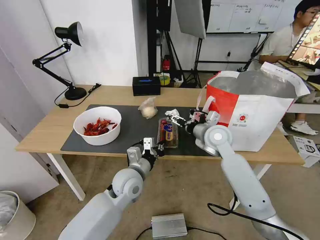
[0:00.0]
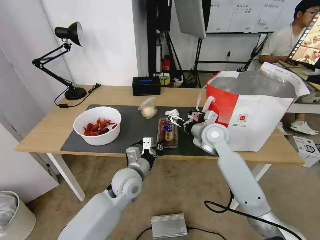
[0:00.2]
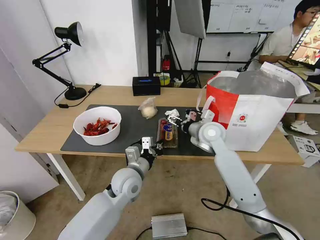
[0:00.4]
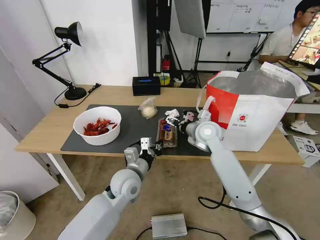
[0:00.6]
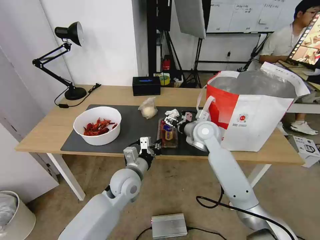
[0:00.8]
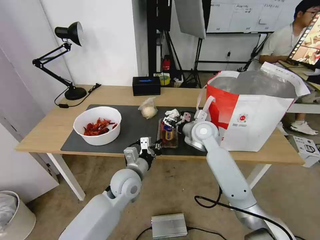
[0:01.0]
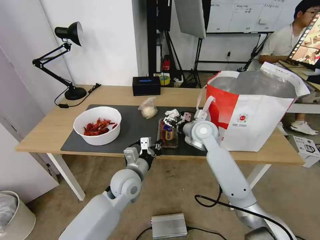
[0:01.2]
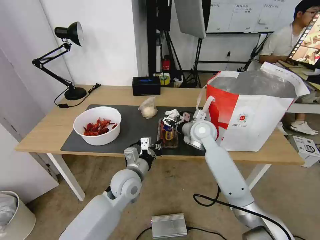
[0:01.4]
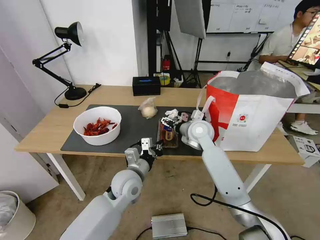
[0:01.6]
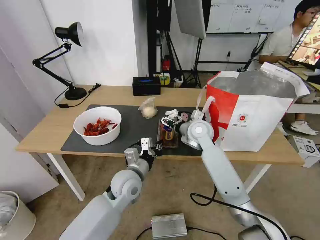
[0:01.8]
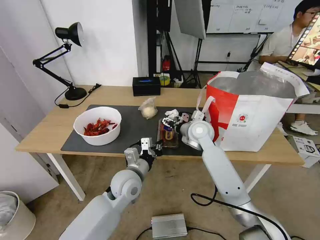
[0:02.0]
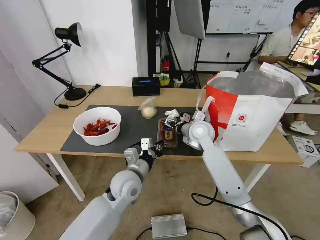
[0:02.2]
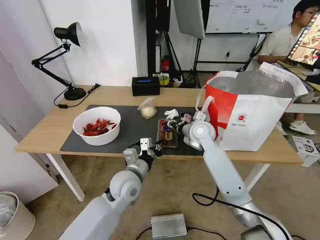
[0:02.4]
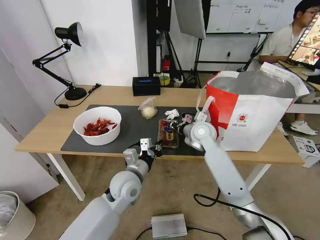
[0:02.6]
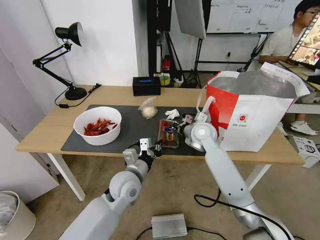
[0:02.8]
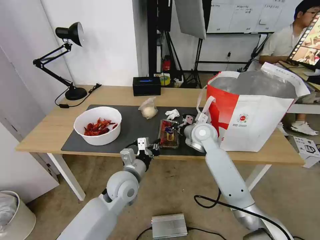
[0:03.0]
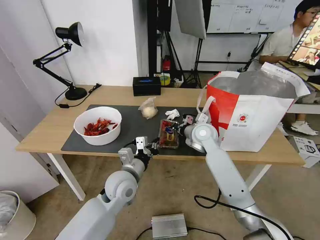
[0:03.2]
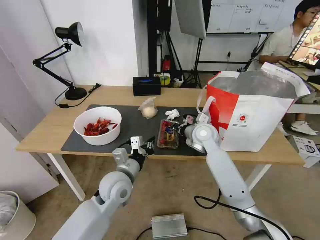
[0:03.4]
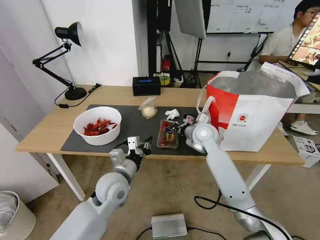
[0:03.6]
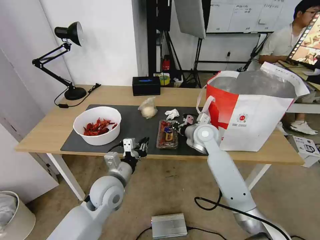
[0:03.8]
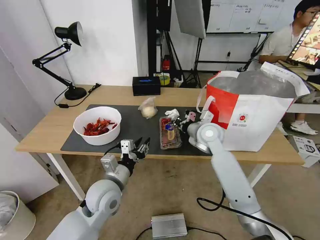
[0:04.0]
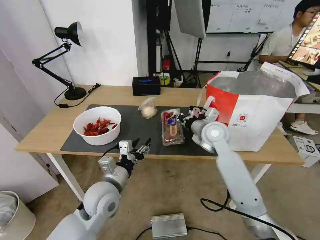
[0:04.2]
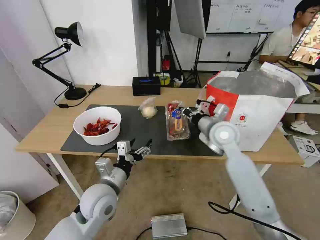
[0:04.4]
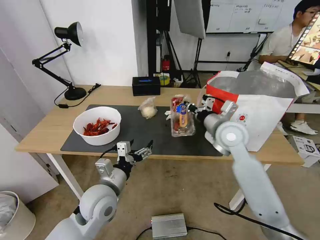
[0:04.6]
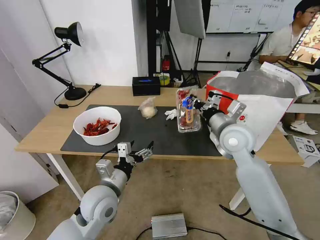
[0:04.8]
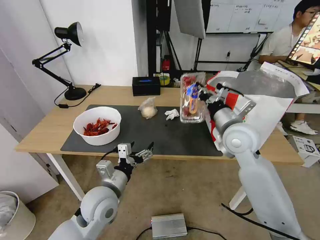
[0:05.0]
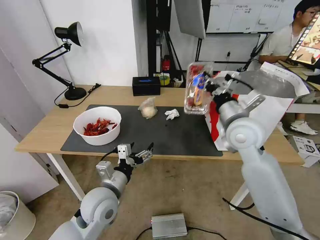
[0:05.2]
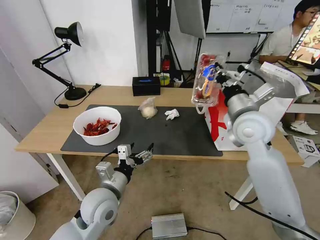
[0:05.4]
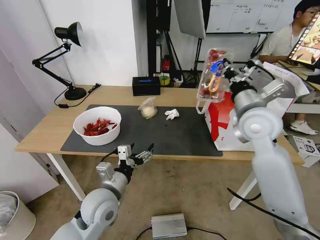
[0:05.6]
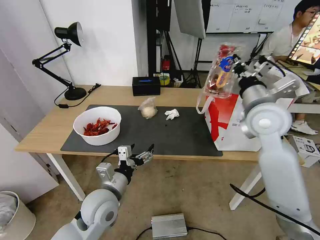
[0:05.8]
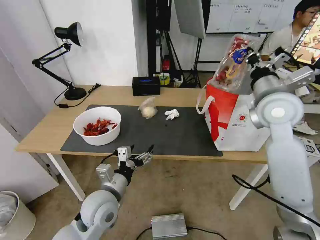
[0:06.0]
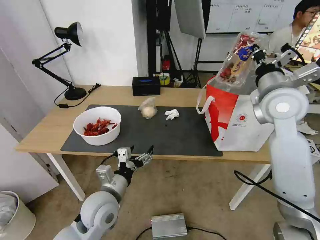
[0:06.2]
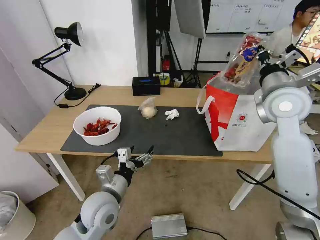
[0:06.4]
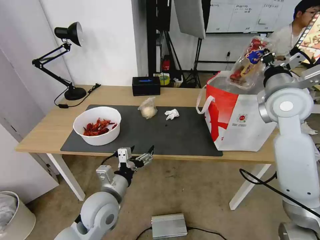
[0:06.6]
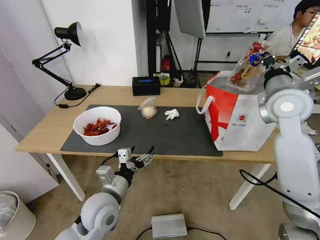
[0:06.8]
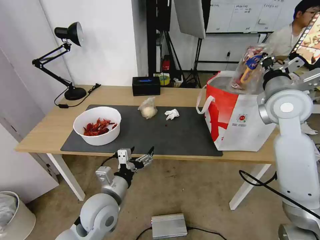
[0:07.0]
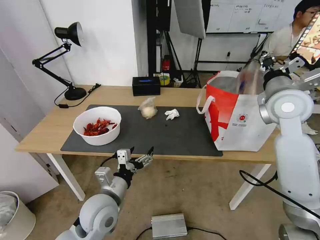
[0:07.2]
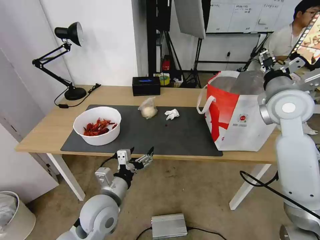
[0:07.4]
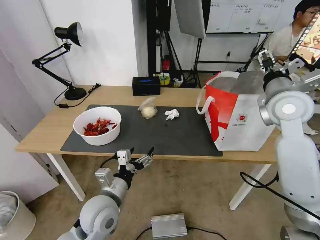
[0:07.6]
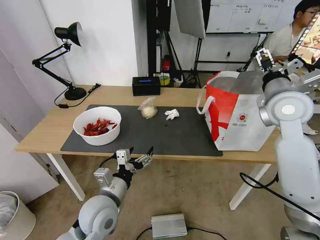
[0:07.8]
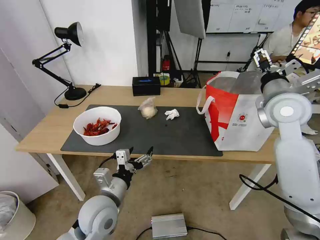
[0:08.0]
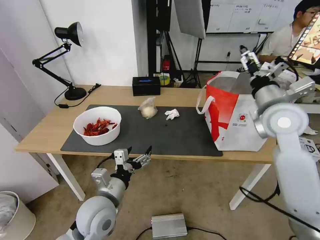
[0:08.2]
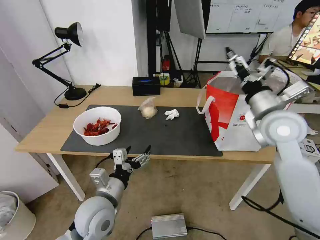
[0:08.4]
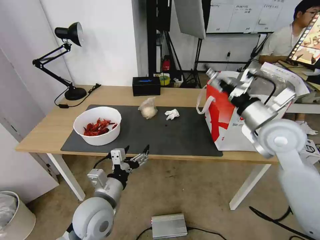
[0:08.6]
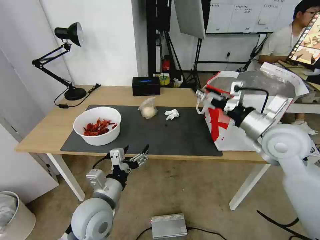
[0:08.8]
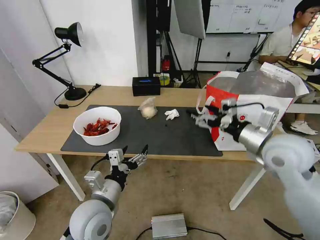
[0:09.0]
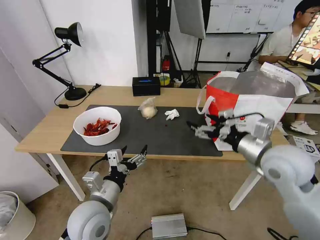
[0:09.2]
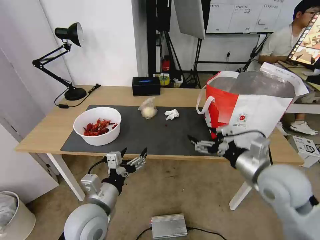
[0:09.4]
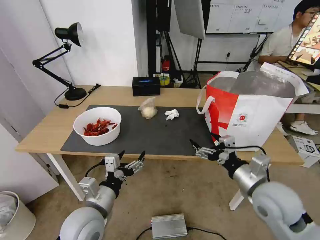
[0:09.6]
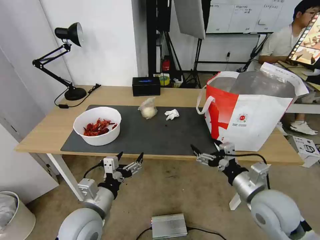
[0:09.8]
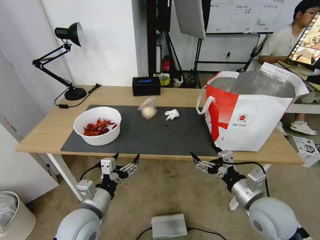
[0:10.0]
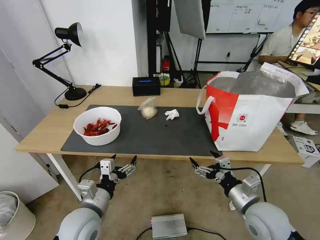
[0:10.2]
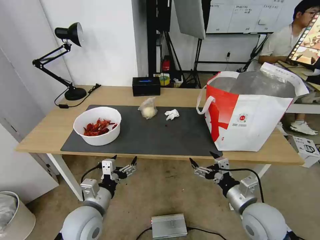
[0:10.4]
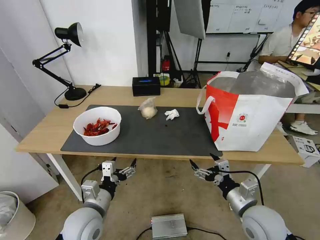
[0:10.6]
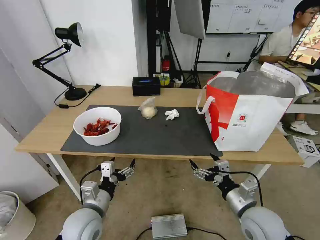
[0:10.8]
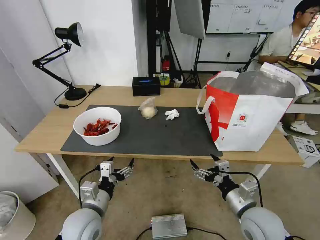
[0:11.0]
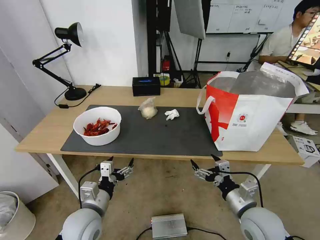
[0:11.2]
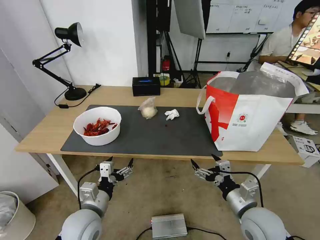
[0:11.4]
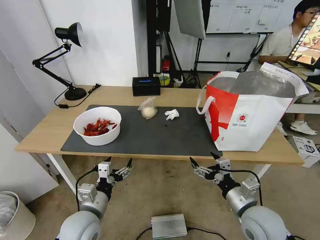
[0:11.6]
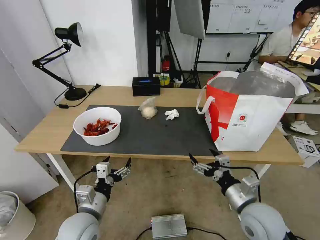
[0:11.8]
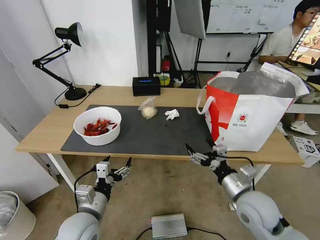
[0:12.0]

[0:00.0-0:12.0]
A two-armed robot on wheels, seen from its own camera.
Task of the whole recording: Pick up the trash from the table and place it into the takeout bag.
0:00.0 to 0:01.6: The right gripper changes place by approximately 5 cm.
0:01.6 to 0:03.0: The right gripper closes up.
0:03.0 to 0:04.4: The left gripper is displaced to the left by approximately 5 cm, and opens its fingers. The right gripper is displaced upward by roughly 5 cm.
0:04.4 to 0:06.0: The right gripper shifts about 15 cm upward and to the right.
0:06.0 to 0:07.6: The right gripper opens up.
0:07.6 to 0:09.0: The right gripper goes roughly 10 cm backward and downward.
0:09.0 to 0:10.4: The right gripper travels downward and backward by roughly 20 cm. The left gripper changes place by roughly 5 cm.
0:10.4 to 0:12.0: The grippers move only a little.

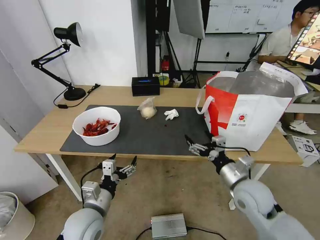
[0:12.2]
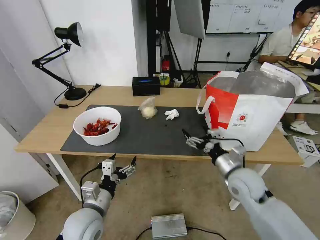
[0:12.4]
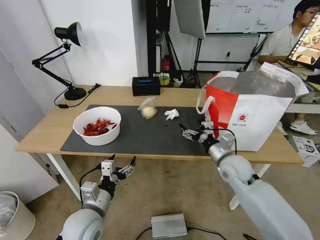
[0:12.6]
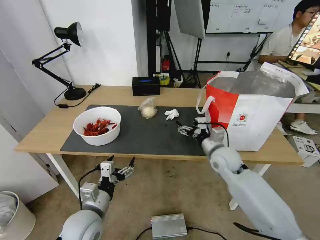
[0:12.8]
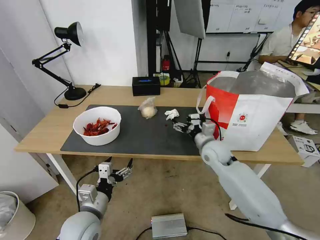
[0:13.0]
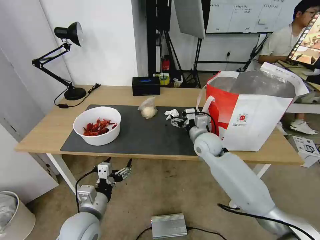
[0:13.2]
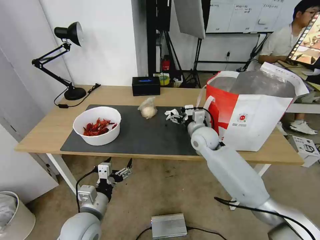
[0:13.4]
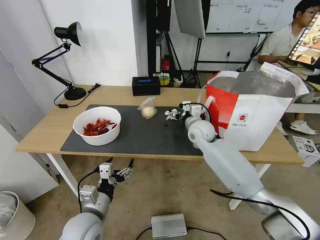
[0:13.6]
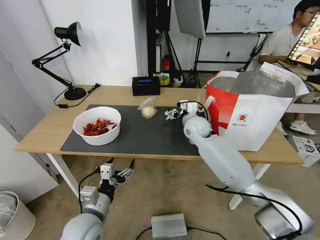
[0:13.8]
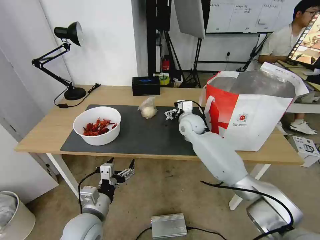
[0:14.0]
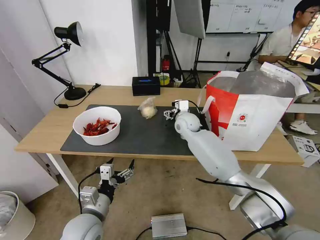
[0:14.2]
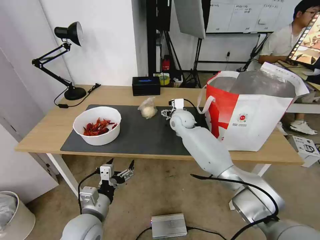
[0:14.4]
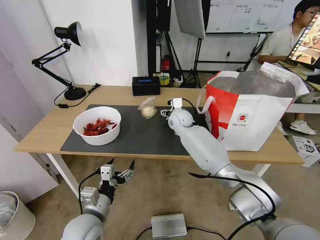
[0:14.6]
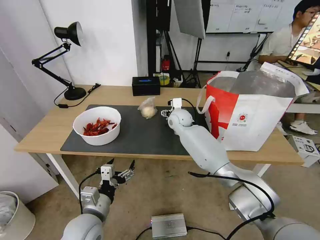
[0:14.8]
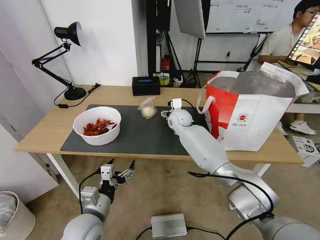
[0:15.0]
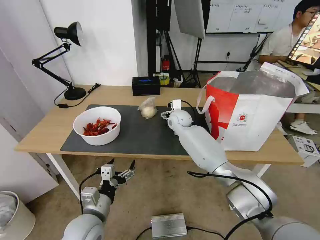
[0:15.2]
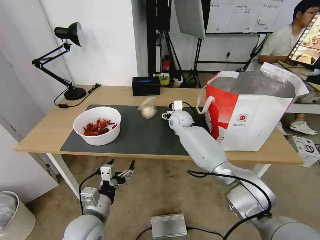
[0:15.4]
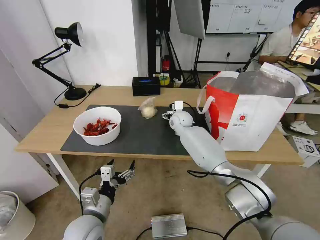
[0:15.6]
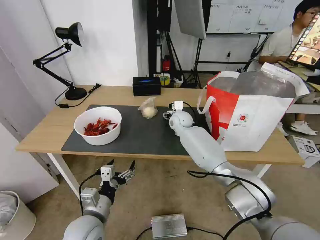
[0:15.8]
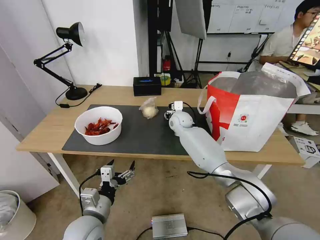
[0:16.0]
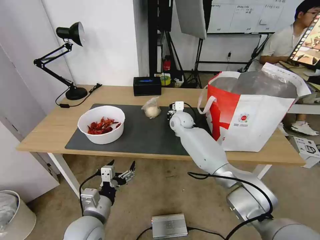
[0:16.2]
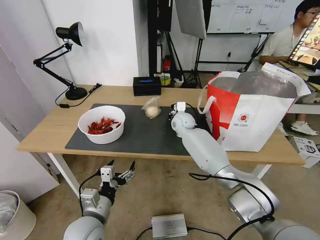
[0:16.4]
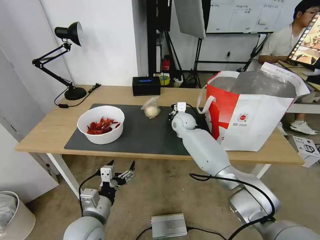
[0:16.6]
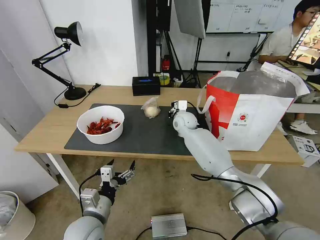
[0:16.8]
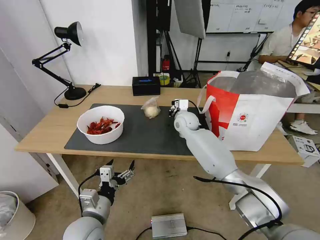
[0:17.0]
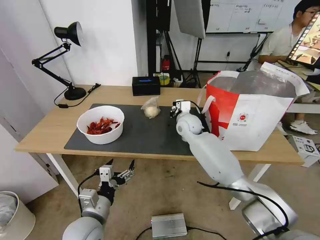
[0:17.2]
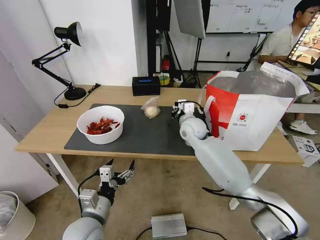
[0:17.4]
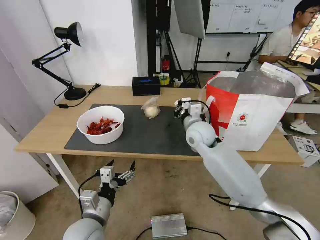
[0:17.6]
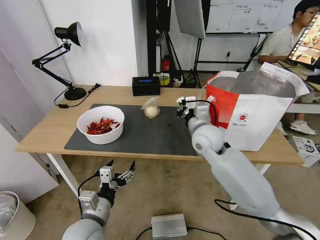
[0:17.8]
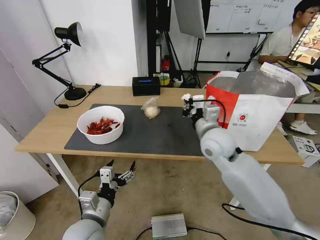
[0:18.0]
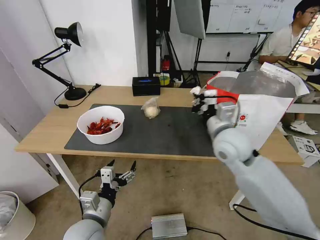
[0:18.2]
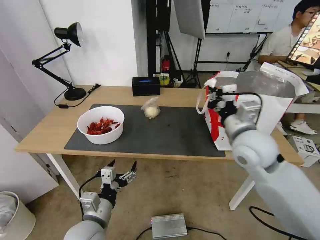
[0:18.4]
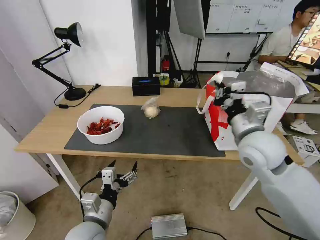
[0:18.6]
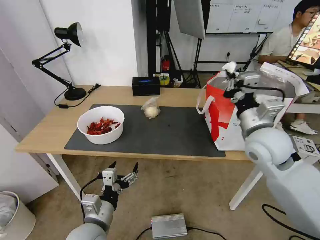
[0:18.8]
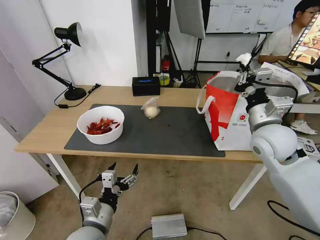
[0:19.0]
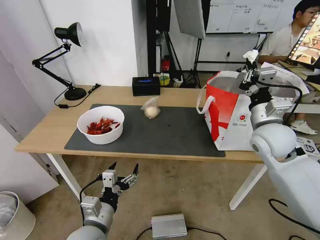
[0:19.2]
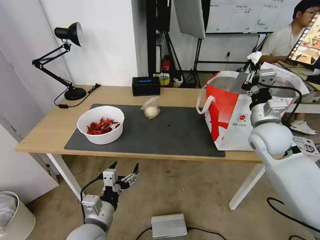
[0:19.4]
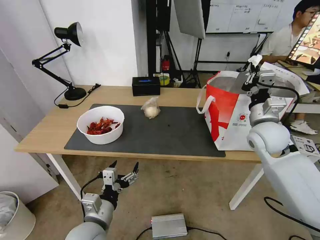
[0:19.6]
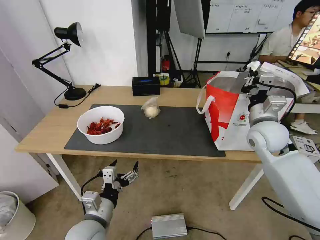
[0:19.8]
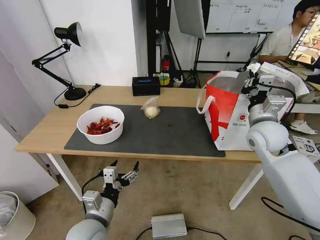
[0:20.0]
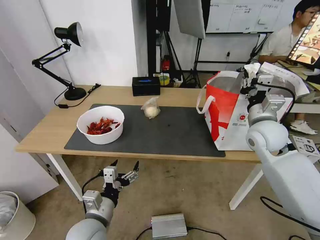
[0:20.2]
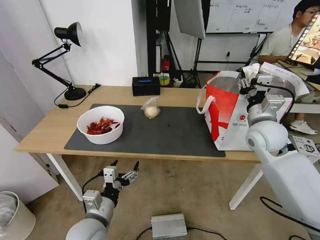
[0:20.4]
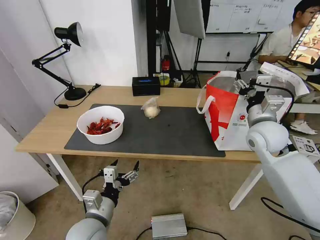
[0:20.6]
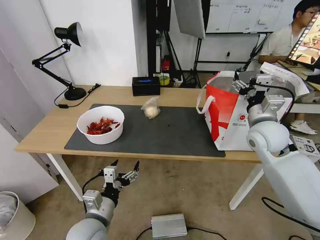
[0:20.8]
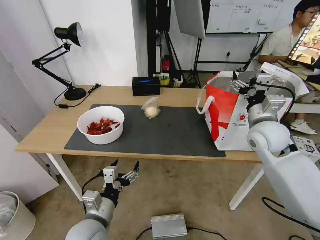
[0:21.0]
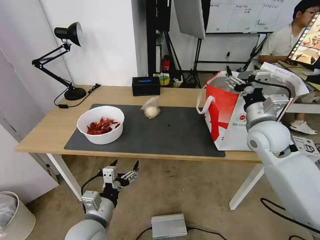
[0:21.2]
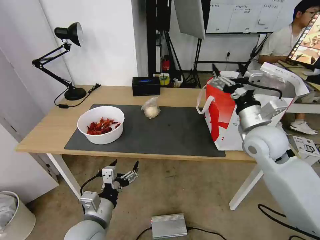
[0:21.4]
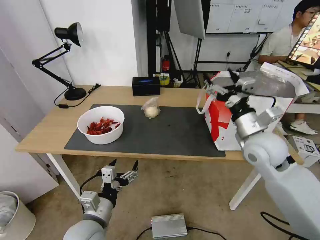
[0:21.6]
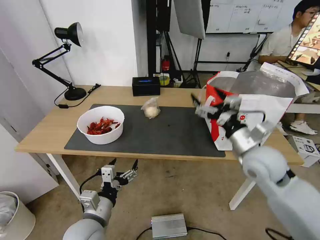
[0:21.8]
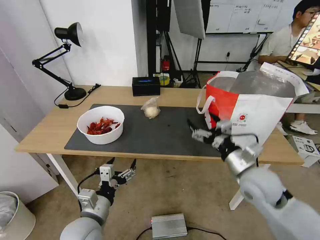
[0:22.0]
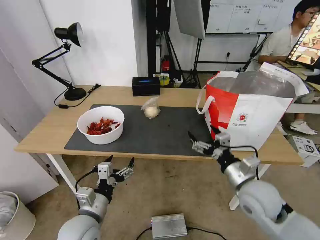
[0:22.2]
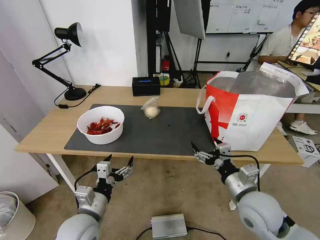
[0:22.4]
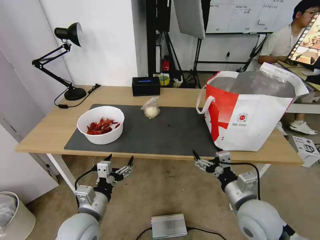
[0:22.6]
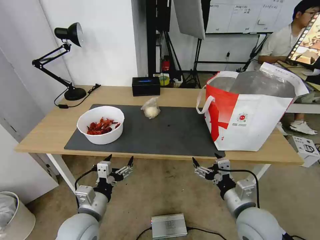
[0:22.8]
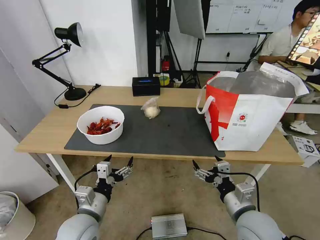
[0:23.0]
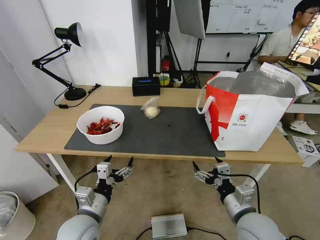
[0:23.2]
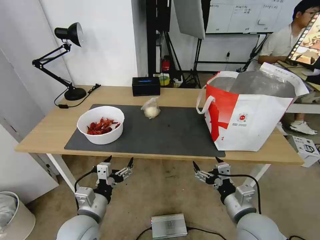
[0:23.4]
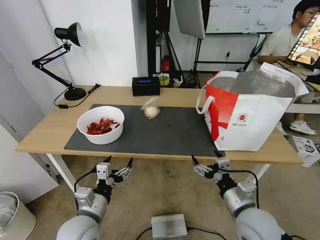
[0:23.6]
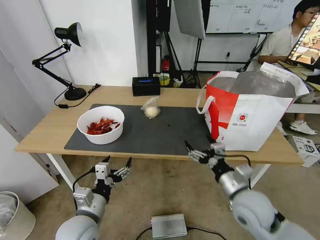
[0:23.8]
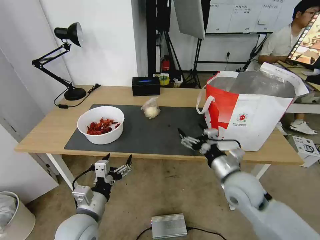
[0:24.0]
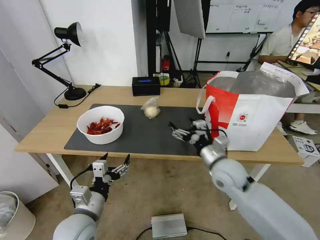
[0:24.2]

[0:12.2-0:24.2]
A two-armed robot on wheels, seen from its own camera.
Task of the whole recording: Pick up the trash from the table and place it into the takeout bag.
0:12.2 to 0:13.8: The right gripper moves forward and to the left, roughly 30 cm.
0:13.8 to 0:15.2: The right gripper is displaced forward and to the left by approximately 10 cm.
0:15.2 to 0:16.6: The right gripper closes its fingers.
0:16.6 to 0:18.2: The right gripper heads backward, upward and to the right, covering approximately 25 cm.
0:18.2 to 0:19.8: The right gripper travels to the right by some 10 cm.
0:19.8 to 0:21.2: The right gripper opens.
0:21.2 to 0:22.6: The right gripper shifts some 20 cm backward and downward.
0:22.6 to 0:24.2: The right gripper moves forward, roughly 10 cm.
